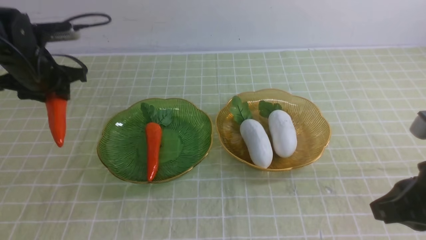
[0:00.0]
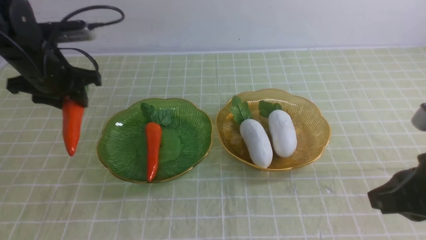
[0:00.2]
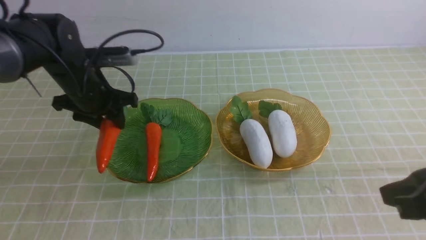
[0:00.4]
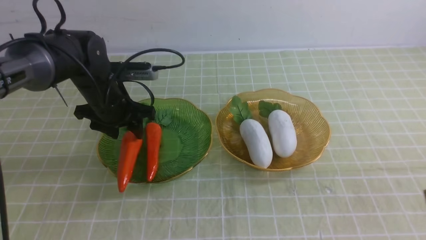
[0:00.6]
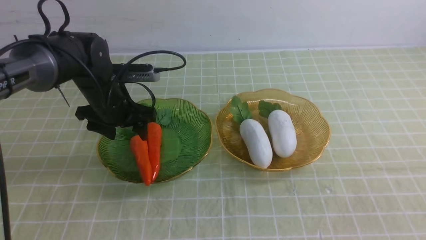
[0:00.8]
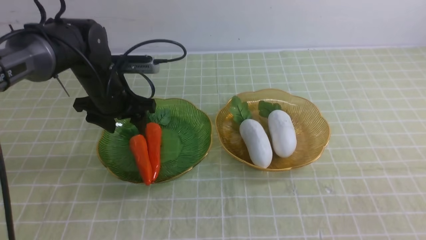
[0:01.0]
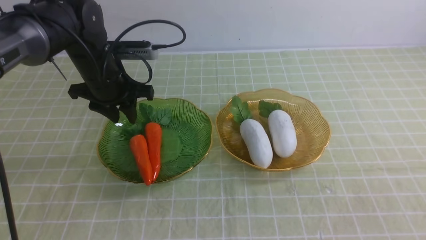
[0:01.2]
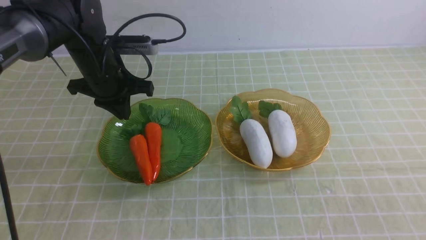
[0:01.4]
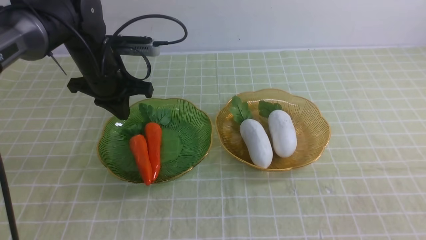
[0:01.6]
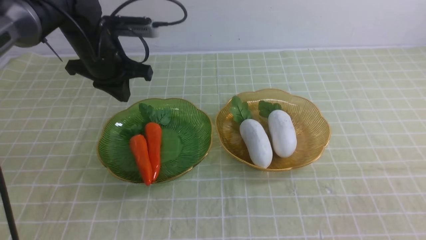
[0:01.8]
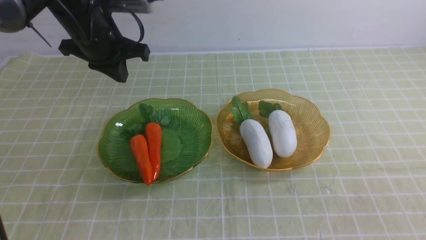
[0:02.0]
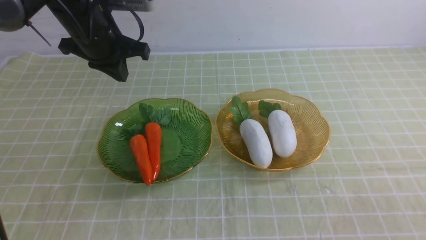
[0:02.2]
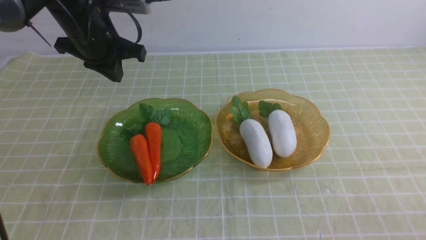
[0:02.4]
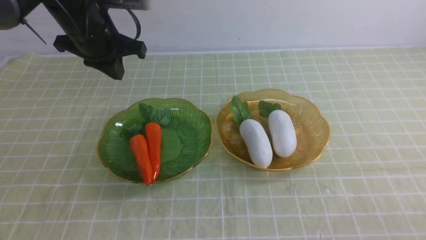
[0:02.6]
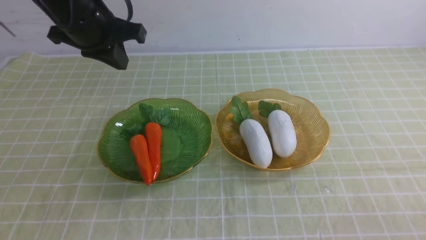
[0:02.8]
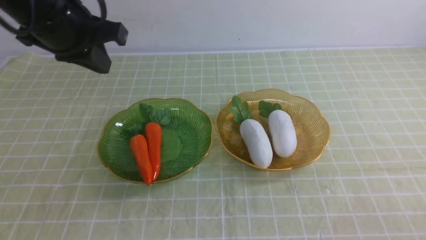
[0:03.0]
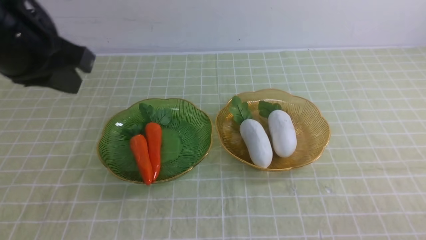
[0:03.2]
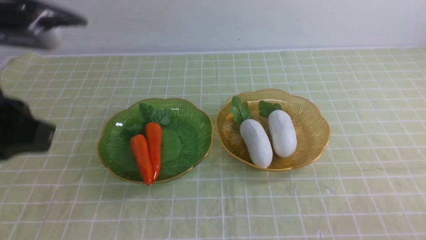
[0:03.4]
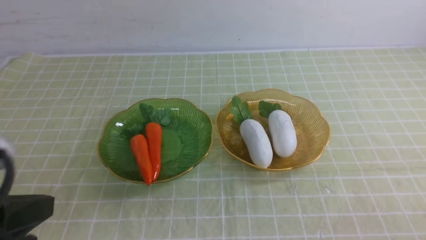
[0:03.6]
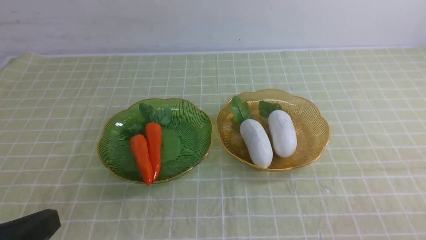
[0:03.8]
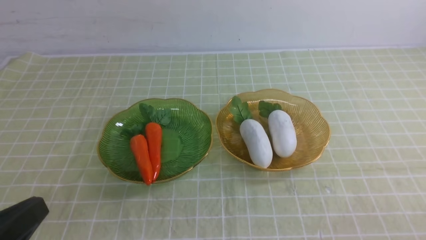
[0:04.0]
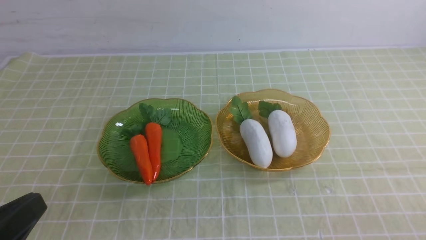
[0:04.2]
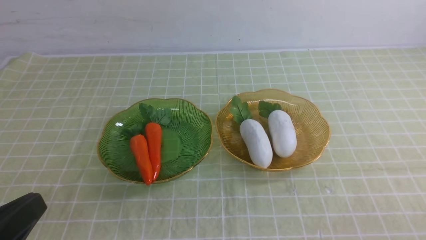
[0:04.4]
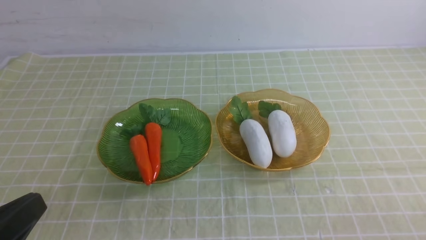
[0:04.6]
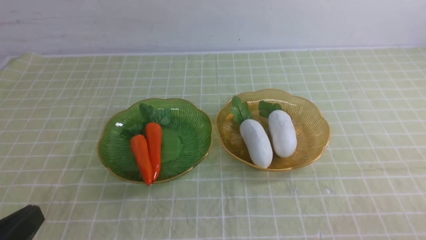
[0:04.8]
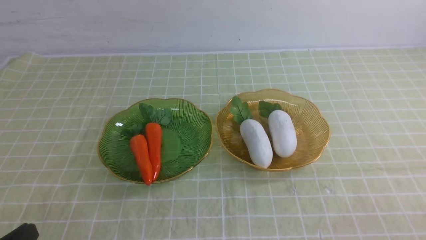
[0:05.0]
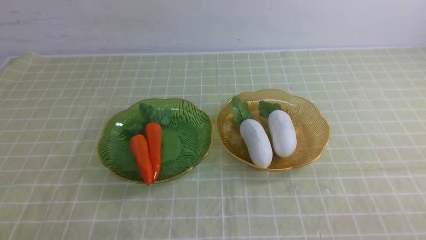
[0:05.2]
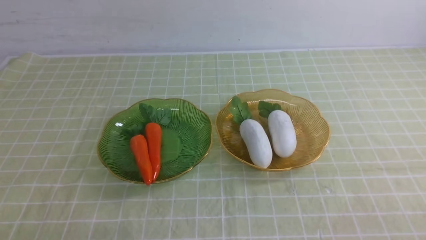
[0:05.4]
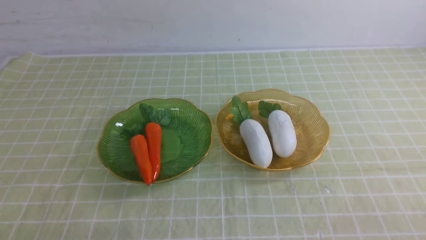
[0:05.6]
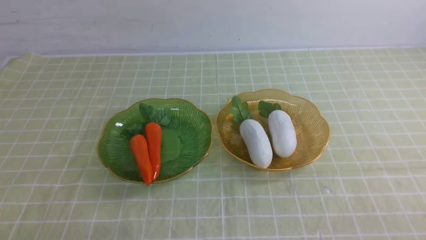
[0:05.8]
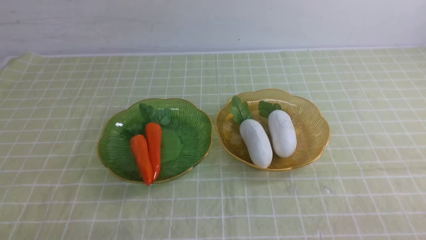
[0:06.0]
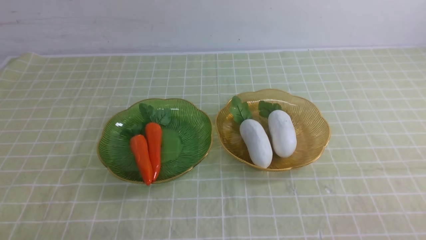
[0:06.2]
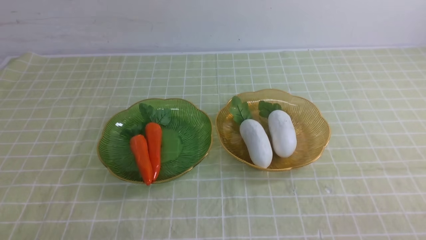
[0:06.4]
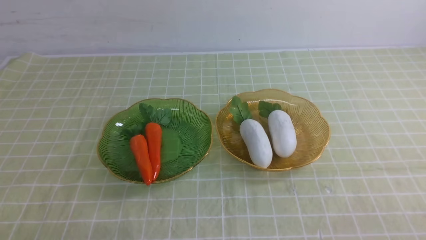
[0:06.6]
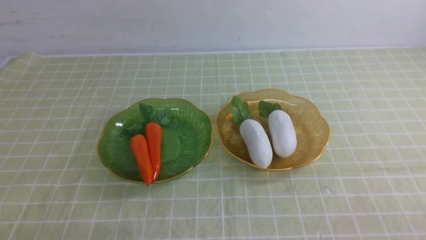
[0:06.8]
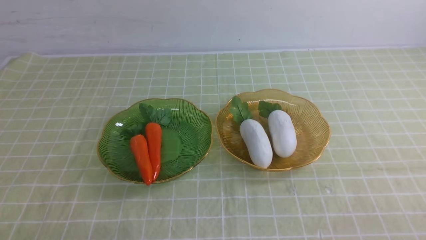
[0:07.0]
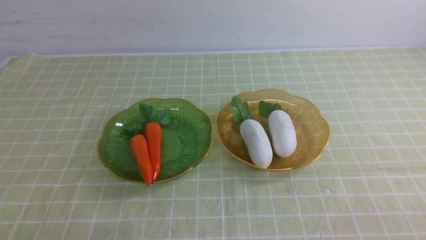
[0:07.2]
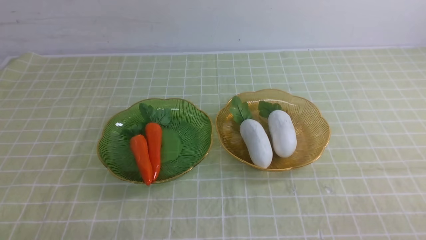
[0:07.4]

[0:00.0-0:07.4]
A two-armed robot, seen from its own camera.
0:00.0 to 0:01.4: The left gripper shifts some 10 cm to the right, and closes its fingers; the right gripper moves backward and to the right, some 15 cm.
0:01.4 to 0:03.0: The right gripper moves downward, some 10 cm; the left gripper goes approximately 15 cm upward and backward.
0:03.0 to 0:04.4: The left gripper goes approximately 30 cm backward and downward.
0:04.4 to 0:06.0: The left gripper goes roughly 10 cm downward.
0:06.0 to 0:07.4: The two grippers keep their place.
